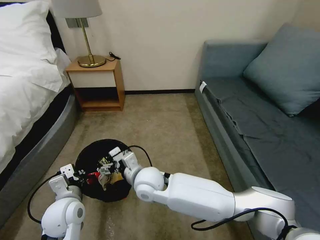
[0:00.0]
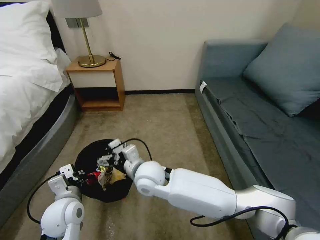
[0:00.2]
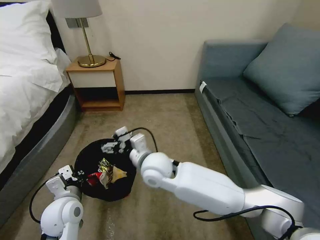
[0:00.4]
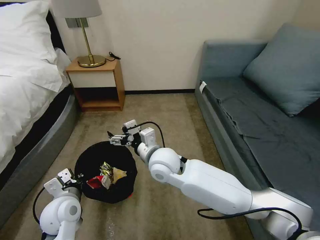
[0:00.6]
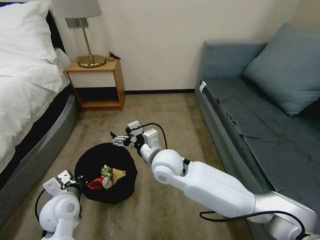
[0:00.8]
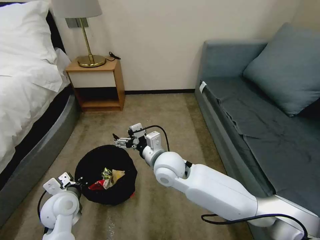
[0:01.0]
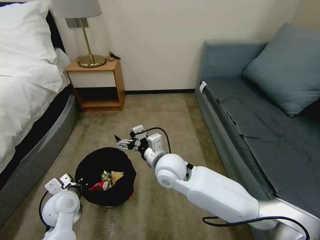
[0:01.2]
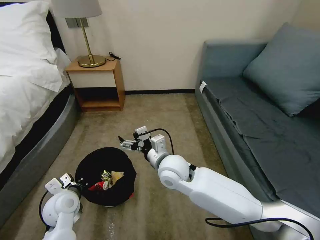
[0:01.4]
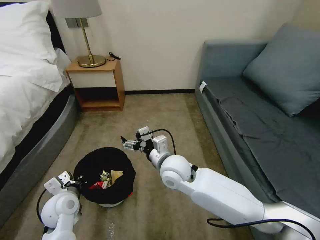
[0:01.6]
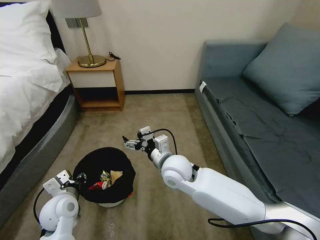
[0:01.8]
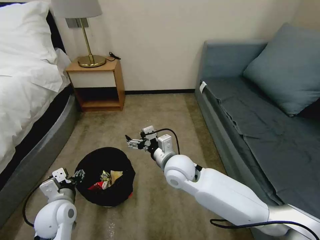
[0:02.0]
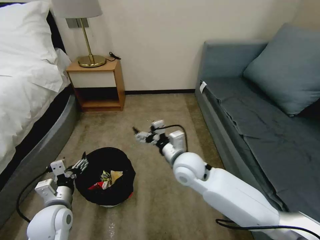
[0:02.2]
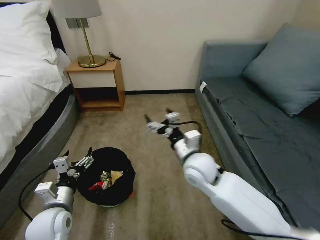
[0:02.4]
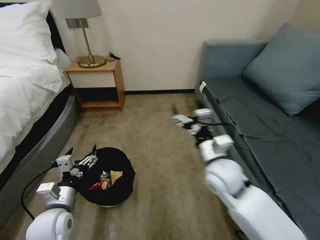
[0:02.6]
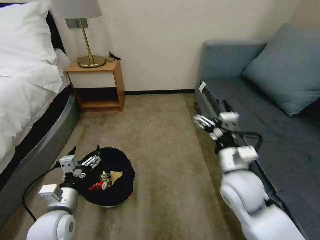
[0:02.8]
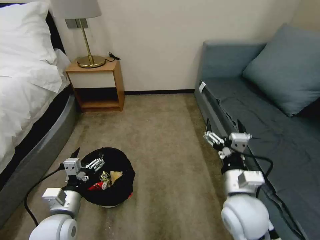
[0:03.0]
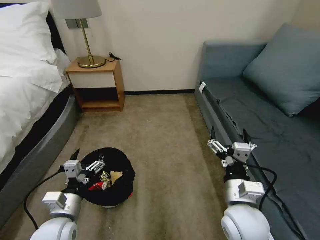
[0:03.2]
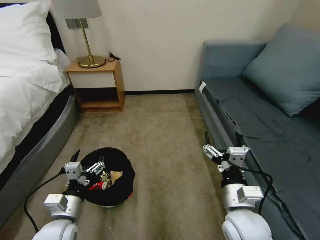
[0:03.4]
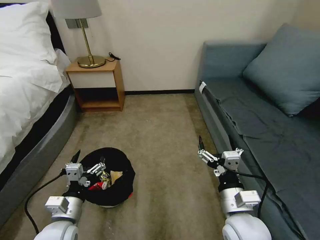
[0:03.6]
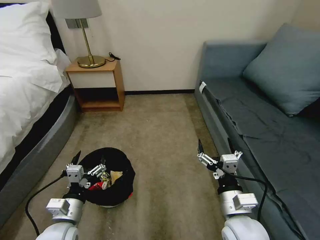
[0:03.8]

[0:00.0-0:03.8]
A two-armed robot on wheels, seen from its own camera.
Task of the whole recording: Pick up the trash bin, then pick up the garbage on the floor and place it into the trash bin.
0:00.0 to 0:01.2: The left gripper ends up some 5 cm from where it was, while the right gripper heads to the right, covering some 5 cm.
0:01.2 to 0:02.6: The left gripper heads backward, covering approximately 5 cm, and opens up. The right gripper shifts some 15 cm to the right.
0:02.6 to 0:03.8: The right gripper shifts roughly 15 cm backward and downward.

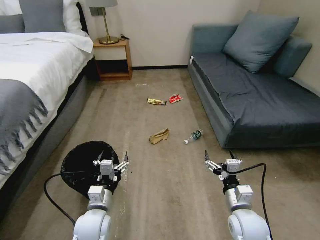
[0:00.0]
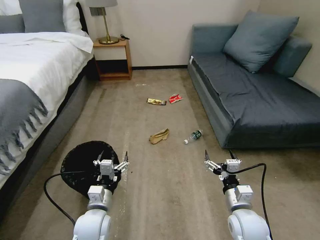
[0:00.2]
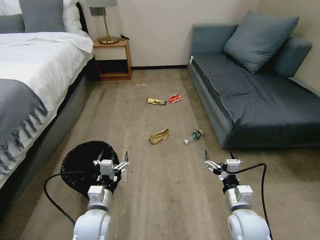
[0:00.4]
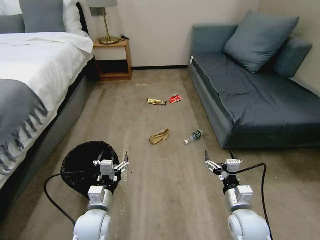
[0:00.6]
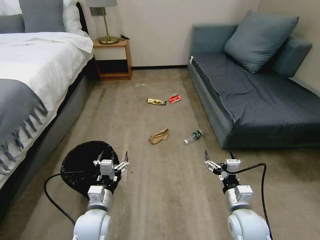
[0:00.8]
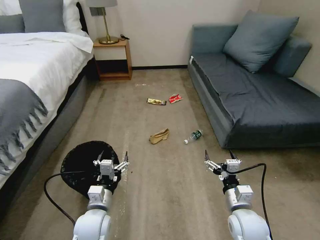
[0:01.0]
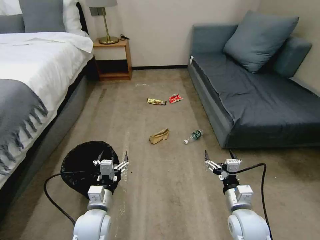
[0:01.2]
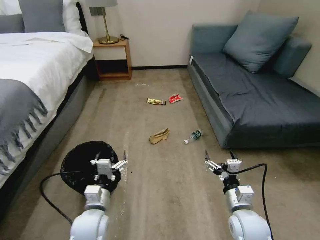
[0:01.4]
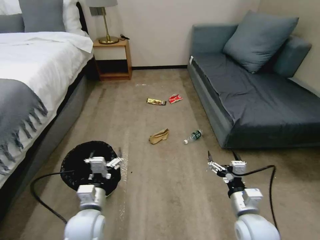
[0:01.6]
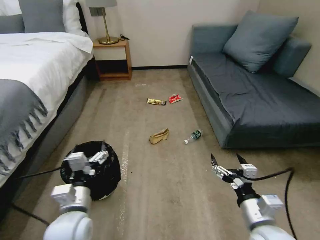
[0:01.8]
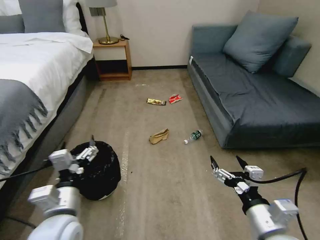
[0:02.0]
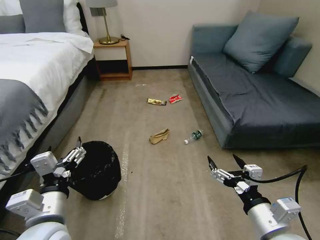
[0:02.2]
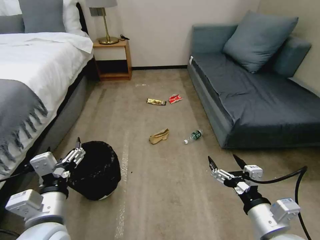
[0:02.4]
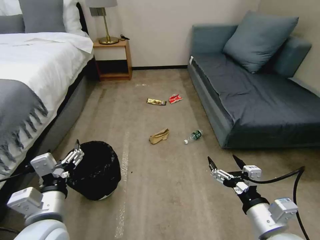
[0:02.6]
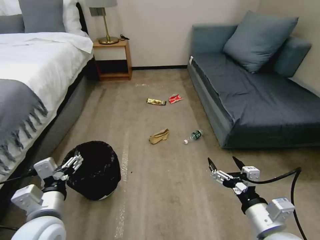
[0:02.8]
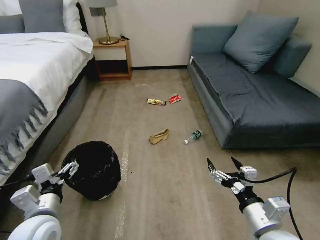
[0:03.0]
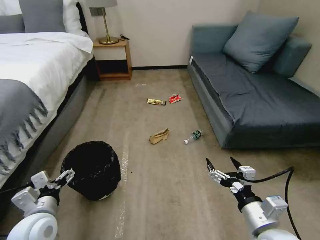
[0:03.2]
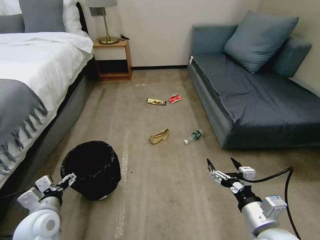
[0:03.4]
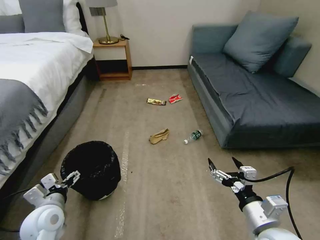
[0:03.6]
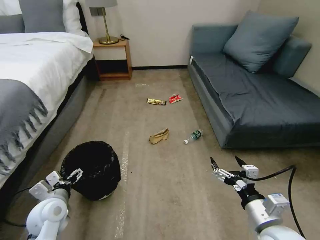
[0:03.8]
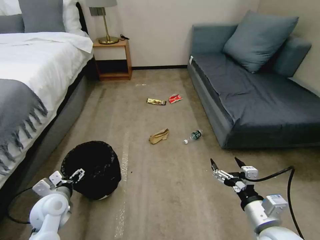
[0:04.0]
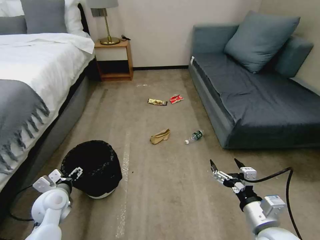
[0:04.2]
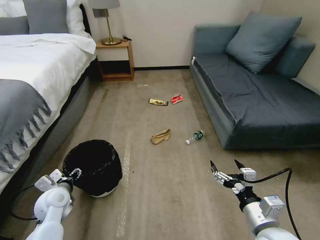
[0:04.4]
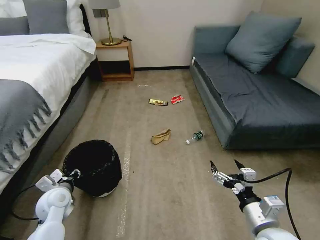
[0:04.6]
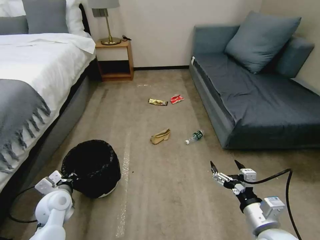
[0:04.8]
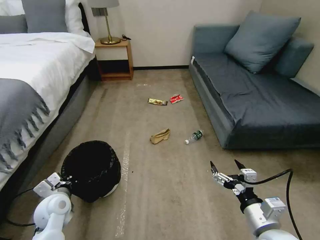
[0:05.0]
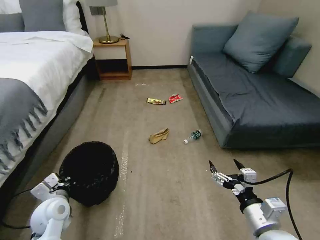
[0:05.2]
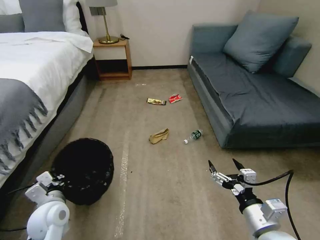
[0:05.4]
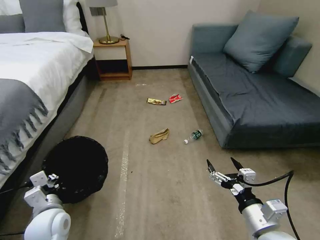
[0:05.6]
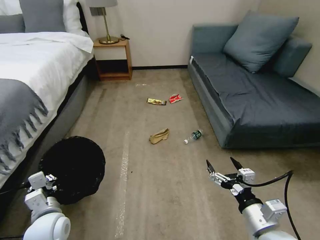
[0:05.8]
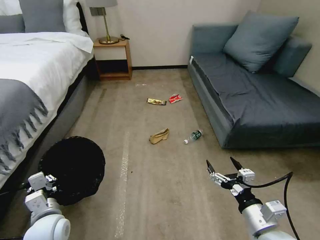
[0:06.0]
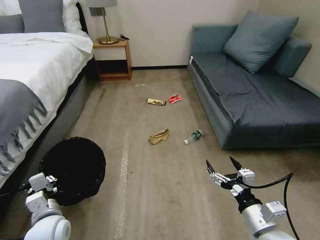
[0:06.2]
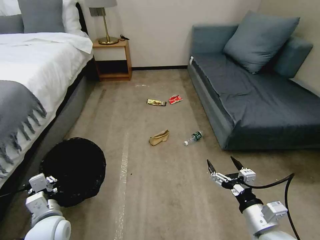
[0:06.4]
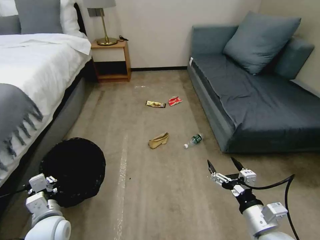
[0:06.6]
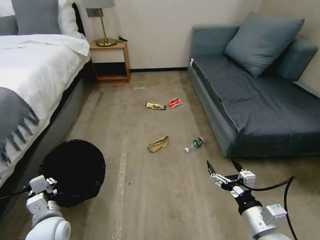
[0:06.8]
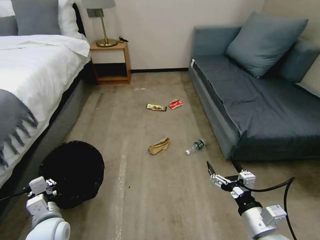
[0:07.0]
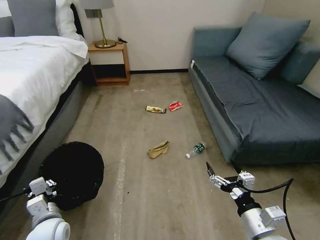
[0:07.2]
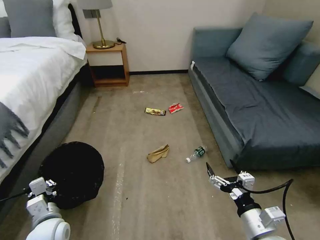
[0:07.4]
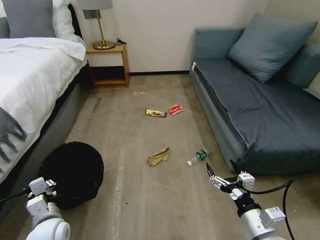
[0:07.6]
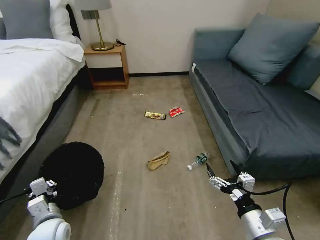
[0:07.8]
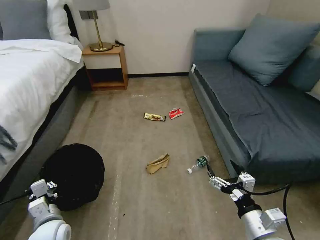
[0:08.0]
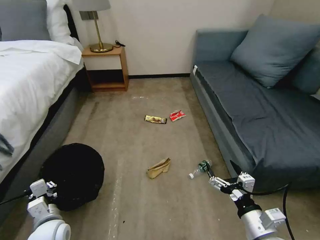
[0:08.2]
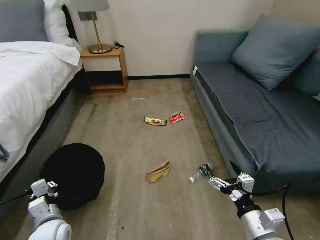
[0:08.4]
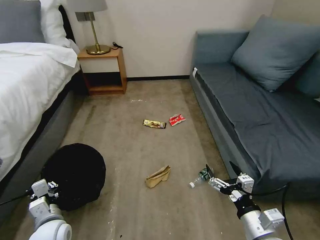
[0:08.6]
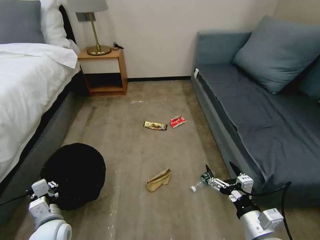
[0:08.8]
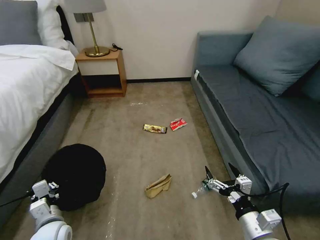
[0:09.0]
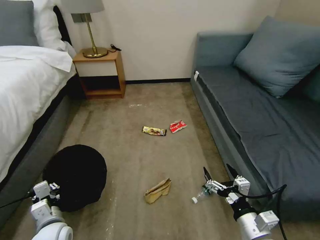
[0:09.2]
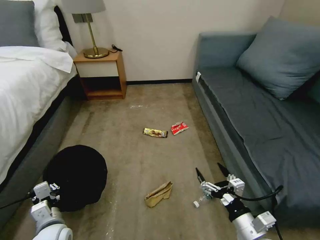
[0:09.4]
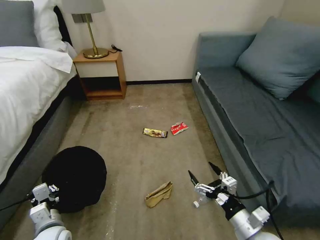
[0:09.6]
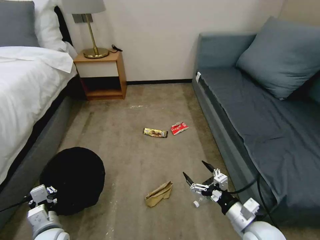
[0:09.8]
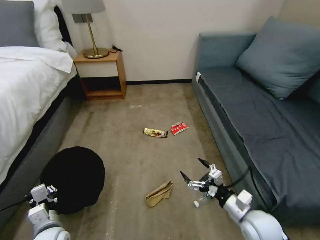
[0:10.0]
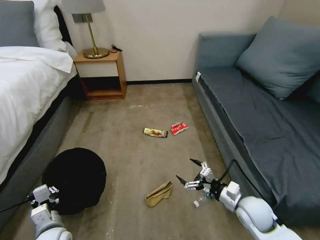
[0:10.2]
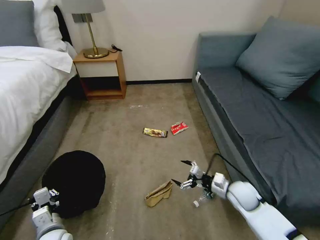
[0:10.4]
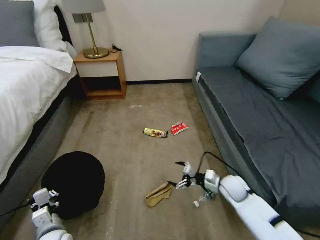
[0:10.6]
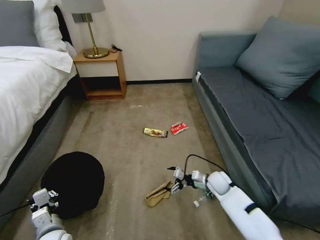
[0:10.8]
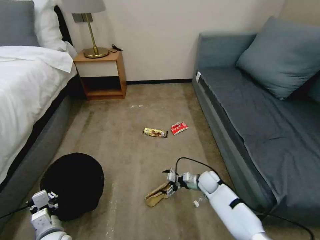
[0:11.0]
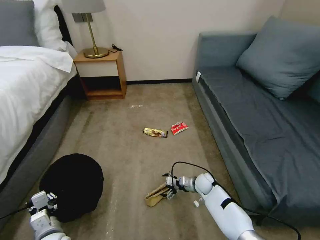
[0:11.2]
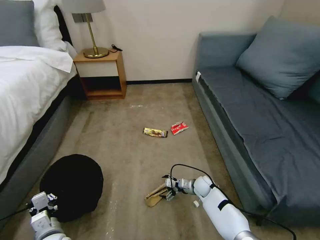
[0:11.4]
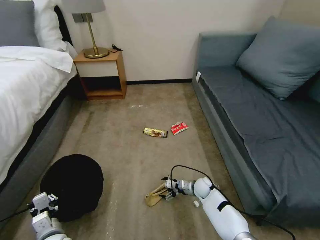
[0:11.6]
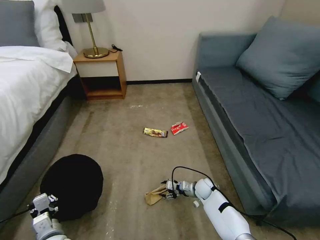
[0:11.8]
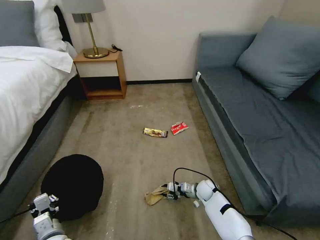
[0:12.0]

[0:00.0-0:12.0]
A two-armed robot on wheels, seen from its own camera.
Task of the whole recording: Pick up the trash bin, then pick up the garbage on the floor and place it into the trash bin.
0:01.6 to 0:03.0: The left gripper goes some 10 cm upward and to the left, while the right gripper travels upward and backward by approximately 10 cm.
0:03.0 to 0:04.4: The left gripper goes roughly 15 cm downward, forward and to the left.
0:04.4 to 0:06.0: The left gripper is displaced backward by some 10 cm, and closes.
0:09.0 to 0:10.4: The right gripper heads forward, covering about 20 cm.
0:10.4 to 0:12.0: The right gripper goes about 20 cm downward, to the left and forward, and closes up.

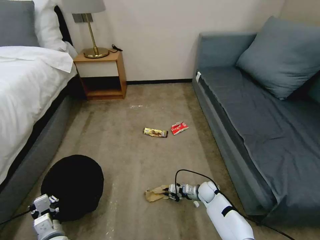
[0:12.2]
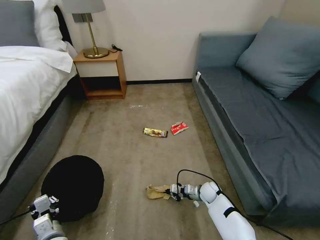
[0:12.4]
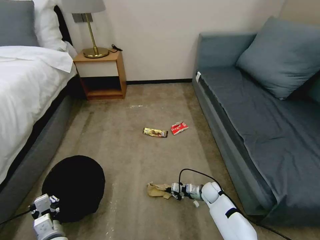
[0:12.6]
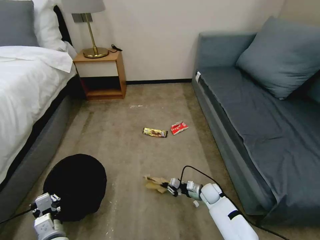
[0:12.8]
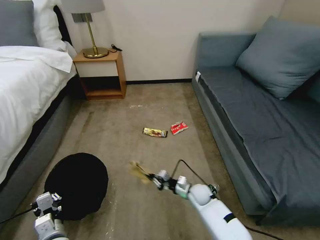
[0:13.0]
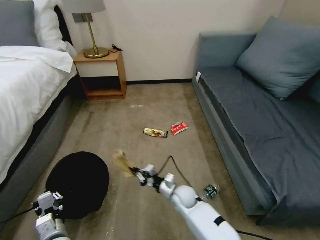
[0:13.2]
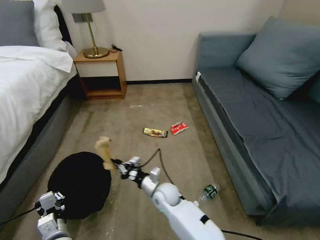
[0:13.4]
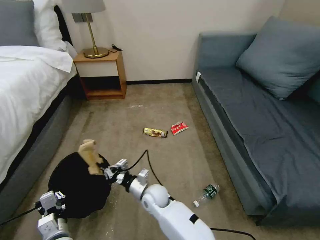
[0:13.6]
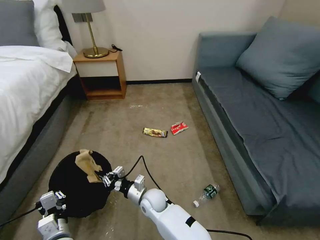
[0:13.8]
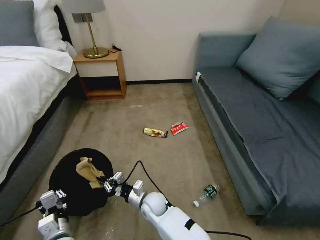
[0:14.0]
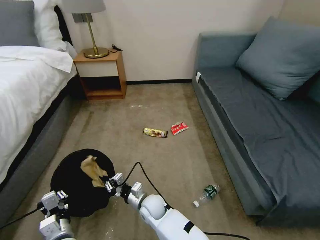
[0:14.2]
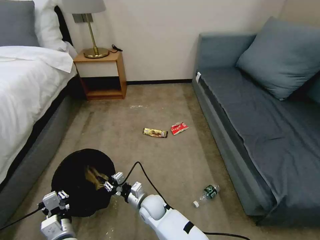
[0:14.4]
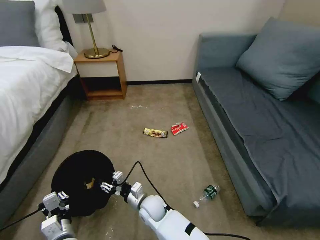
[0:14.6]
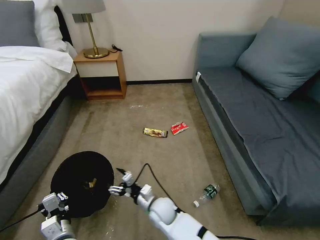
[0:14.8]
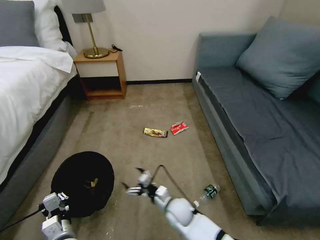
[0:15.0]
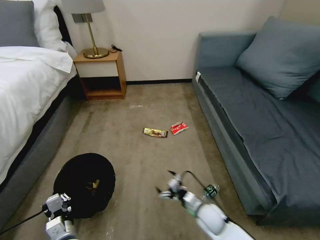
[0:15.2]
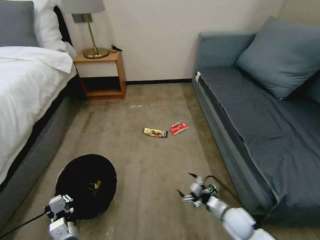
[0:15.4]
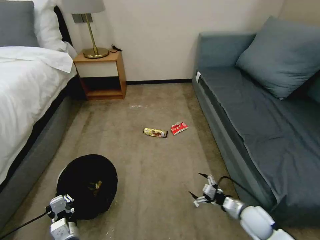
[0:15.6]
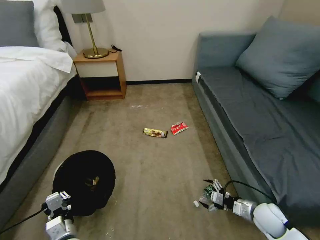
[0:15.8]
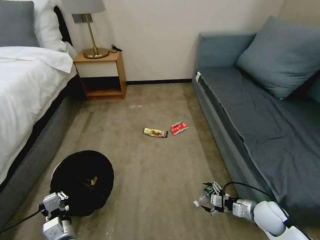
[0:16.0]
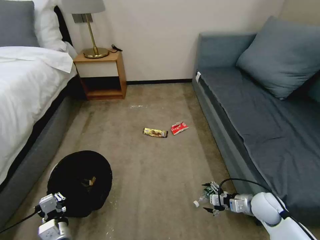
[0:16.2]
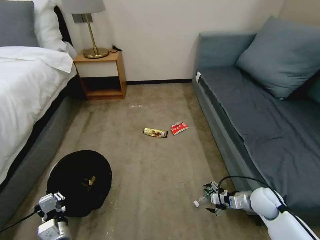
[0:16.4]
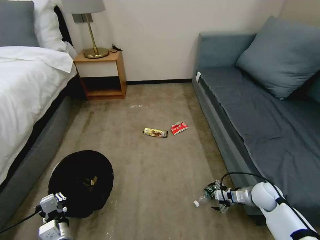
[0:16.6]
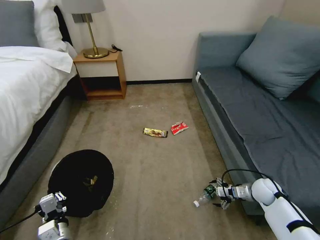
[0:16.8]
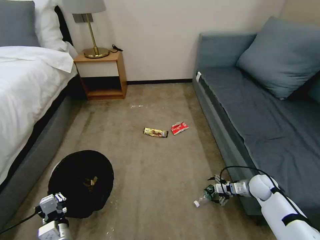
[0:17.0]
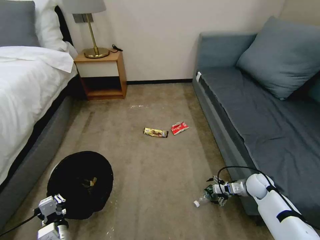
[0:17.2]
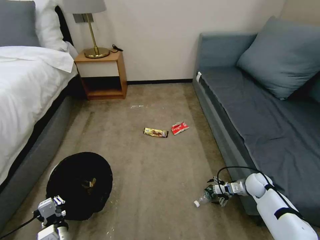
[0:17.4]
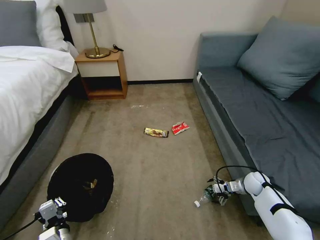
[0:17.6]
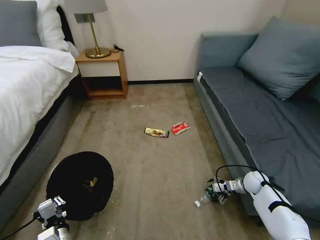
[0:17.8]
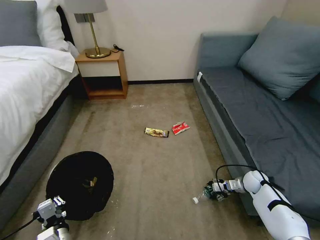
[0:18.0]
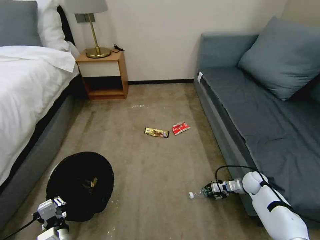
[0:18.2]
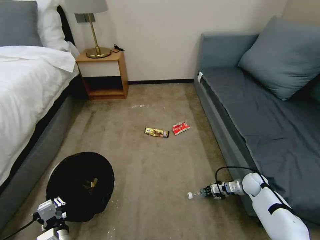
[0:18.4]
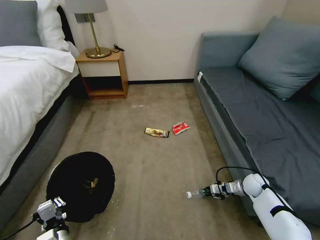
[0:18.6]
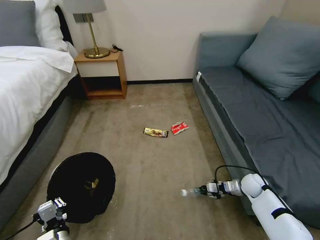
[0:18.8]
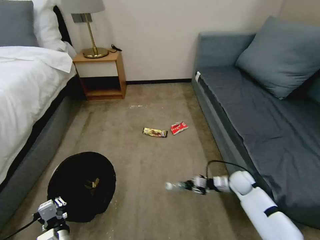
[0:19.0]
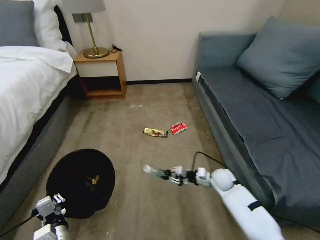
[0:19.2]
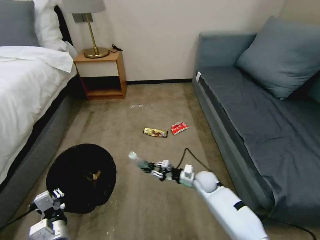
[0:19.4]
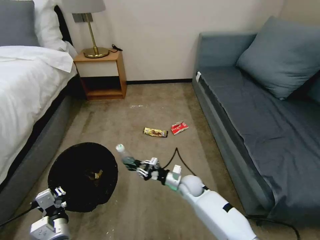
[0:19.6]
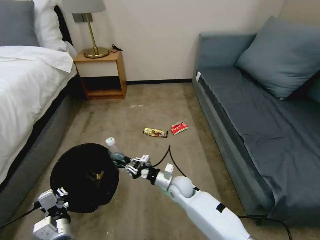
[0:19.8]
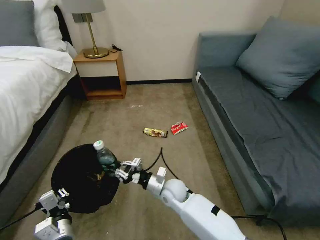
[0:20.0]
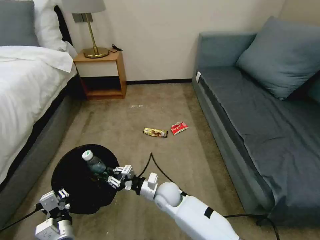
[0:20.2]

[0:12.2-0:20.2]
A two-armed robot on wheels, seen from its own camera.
Task of the whole recording: Pick up the trash bin, then pick up the garbage on the floor and place it into the trash bin.
0:12.2 to 0:13.8: The right gripper heads to the left, covering approximately 25 cm.
0:13.8 to 0:15.4: The right gripper travels to the right by about 25 cm, and opens its fingers.
0:15.4 to 0:17.0: The right gripper heads to the right and forward, covering approximately 25 cm.
0:17.0 to 0:18.6: The right gripper closes.
0:18.6 to 0:20.2: The right gripper travels to the left by some 40 cm.
